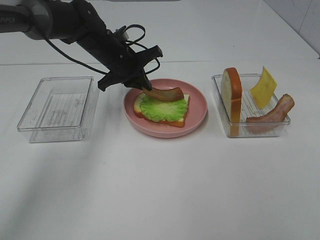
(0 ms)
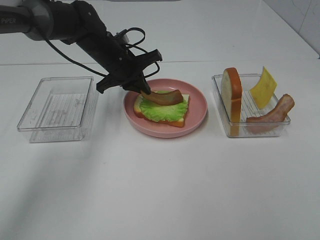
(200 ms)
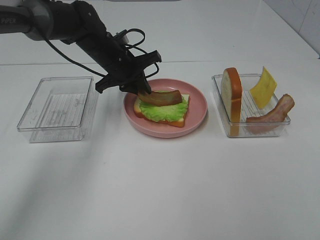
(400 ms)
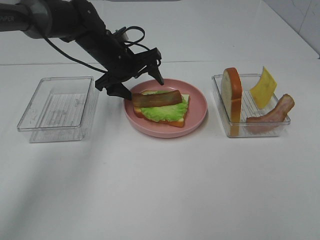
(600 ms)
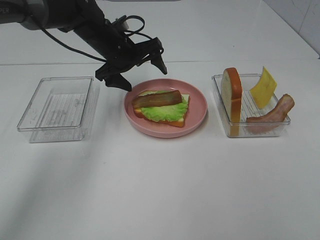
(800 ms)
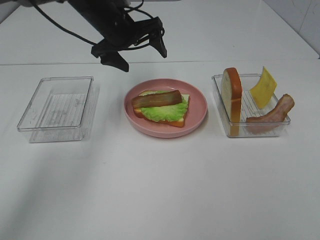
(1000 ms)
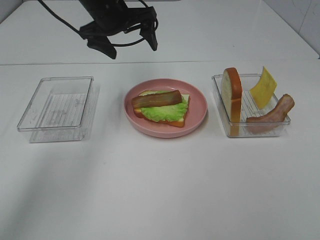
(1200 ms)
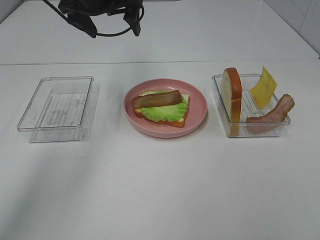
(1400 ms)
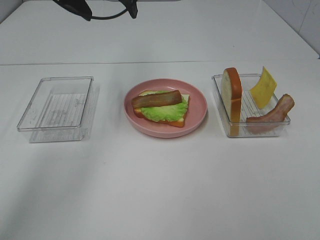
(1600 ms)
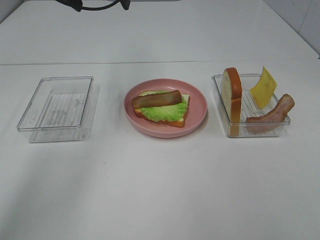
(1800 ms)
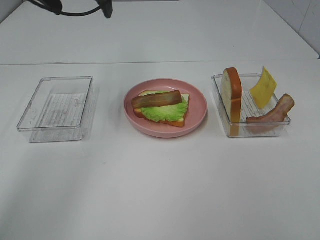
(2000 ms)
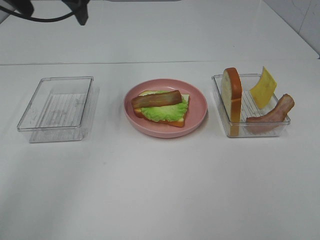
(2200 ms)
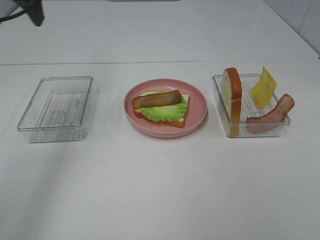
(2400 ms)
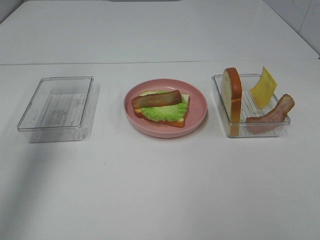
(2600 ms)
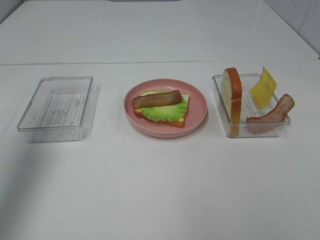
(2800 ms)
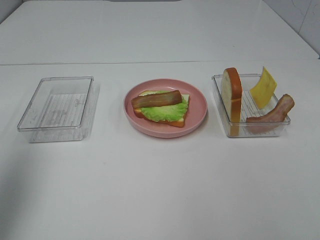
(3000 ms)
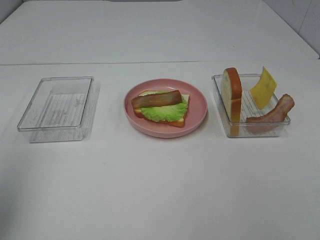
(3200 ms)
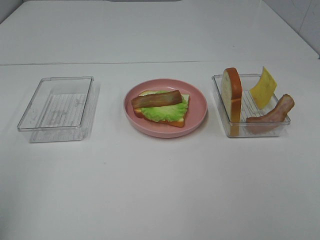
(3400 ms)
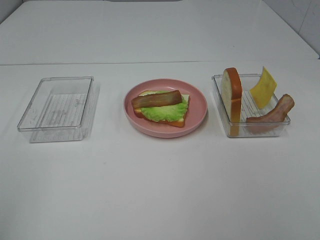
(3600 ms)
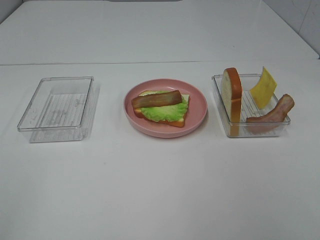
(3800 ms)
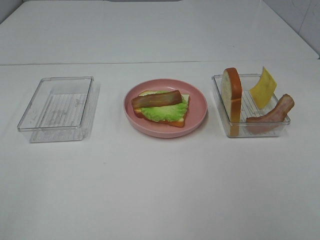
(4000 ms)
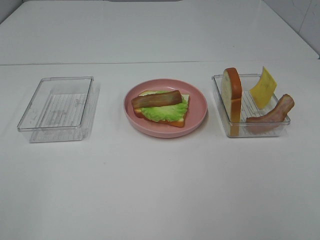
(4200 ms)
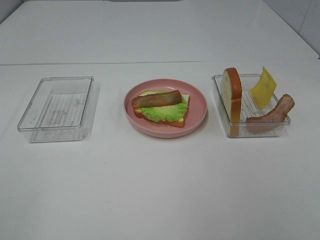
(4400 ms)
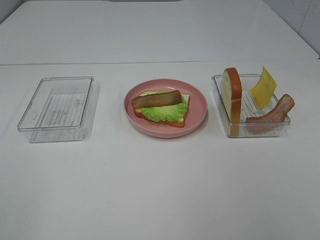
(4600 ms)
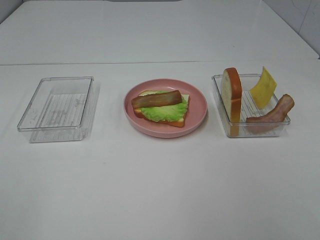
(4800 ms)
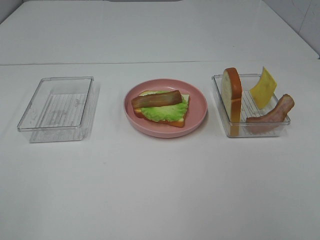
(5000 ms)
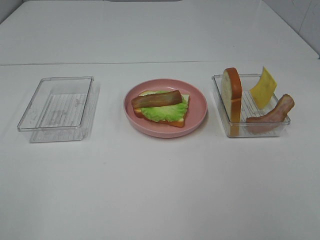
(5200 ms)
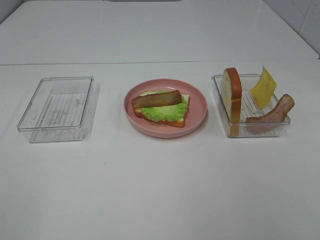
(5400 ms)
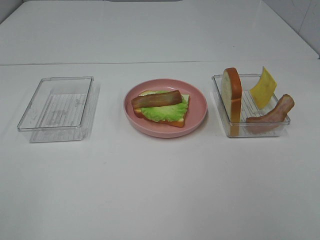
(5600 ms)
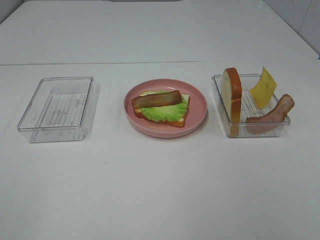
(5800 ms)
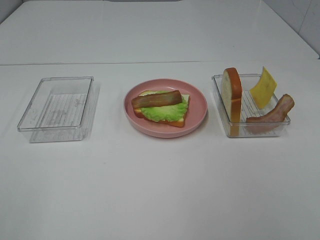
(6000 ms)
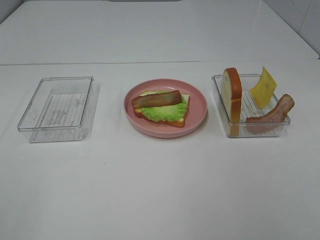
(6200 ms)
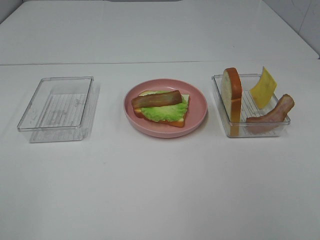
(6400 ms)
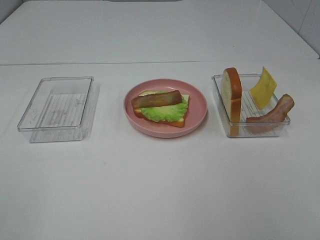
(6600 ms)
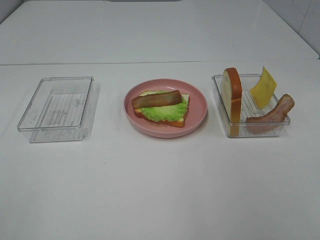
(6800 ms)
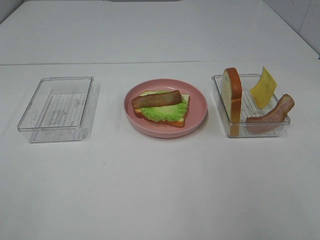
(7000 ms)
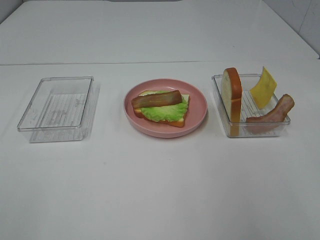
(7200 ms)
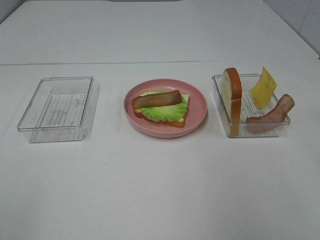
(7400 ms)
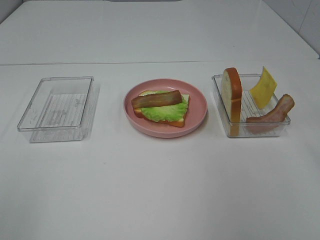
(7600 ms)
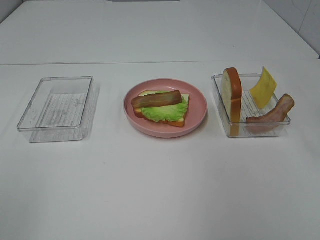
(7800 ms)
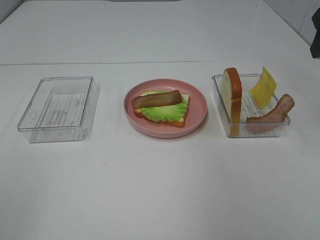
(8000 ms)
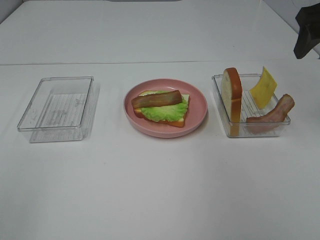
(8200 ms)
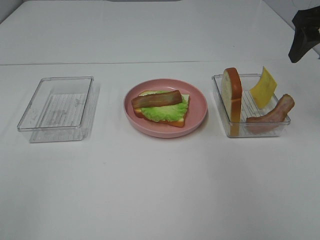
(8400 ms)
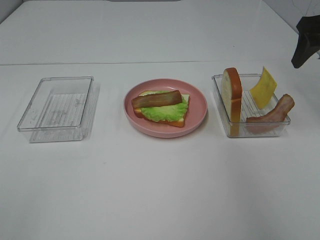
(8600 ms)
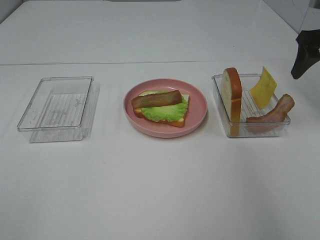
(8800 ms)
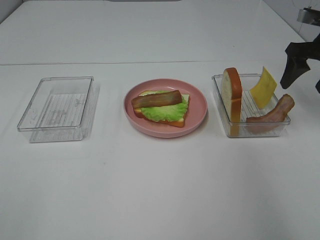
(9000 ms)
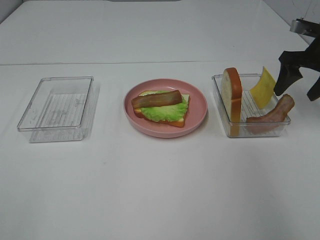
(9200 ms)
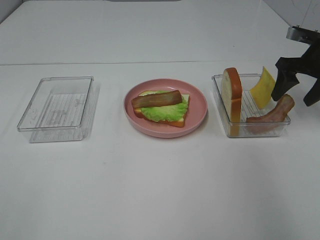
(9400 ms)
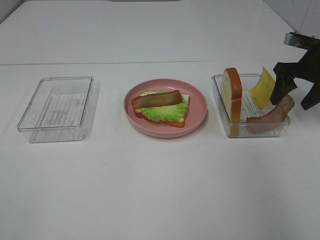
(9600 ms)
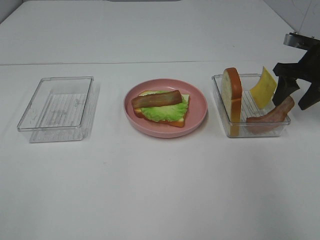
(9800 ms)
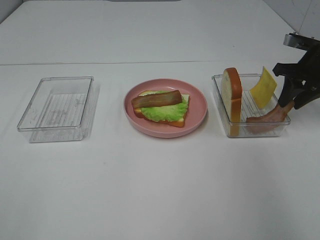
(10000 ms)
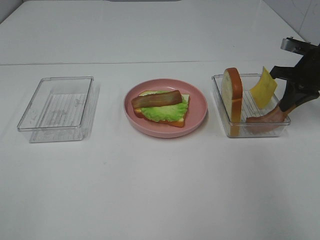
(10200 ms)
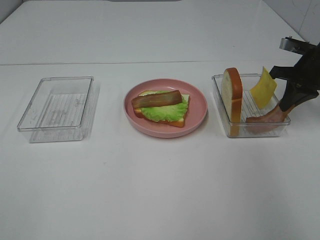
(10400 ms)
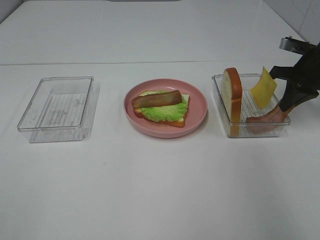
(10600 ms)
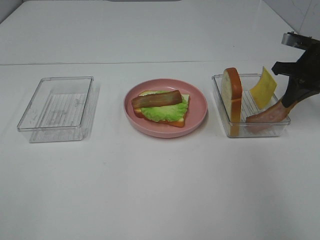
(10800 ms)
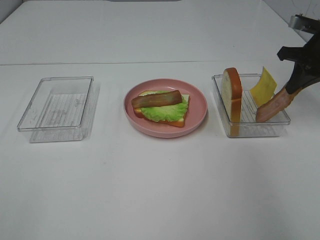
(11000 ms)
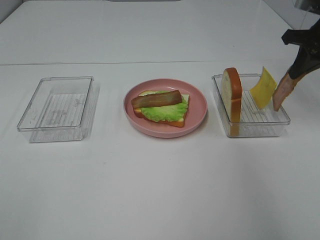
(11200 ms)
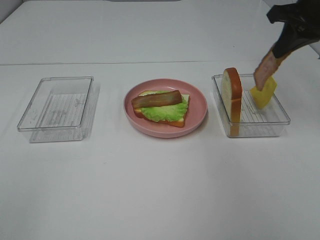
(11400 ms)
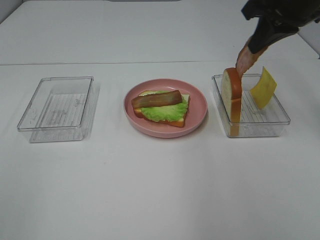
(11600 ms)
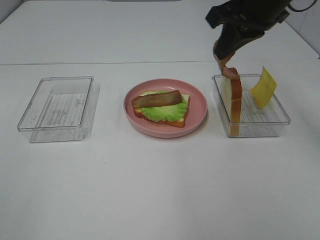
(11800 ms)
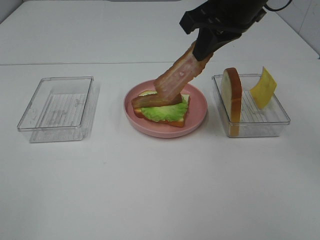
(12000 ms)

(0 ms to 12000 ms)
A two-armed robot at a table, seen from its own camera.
Task of the whole recording: Make sandwiches.
Step, 1000 ms - 10800 ms: Right hand:grab the bacon.
0 ms - 1600 ms: The left gripper goes about 20 cm upward, and opens.
1600 ms - 3000 ms: The left gripper is displaced backward and to the left by about 35 cm.
3000 ms - 4400 ms: The left gripper moves backward, about 20 cm.
4400 ms - 6000 ms: Both grippers stay about where they are.
7600 ms - 9000 ms: The right gripper goes approximately 20 cm forward and downward.
9000 ms - 10400 ms: The right gripper goes approximately 5 cm downward, and closes up.
10400 ms - 12000 ms: The right gripper shifts some 25 cm to the left and upward.

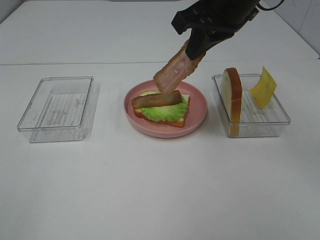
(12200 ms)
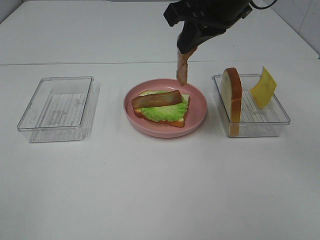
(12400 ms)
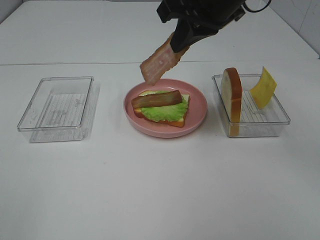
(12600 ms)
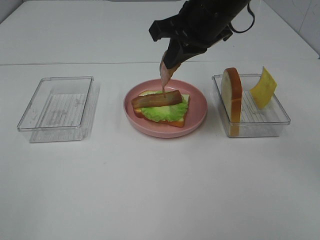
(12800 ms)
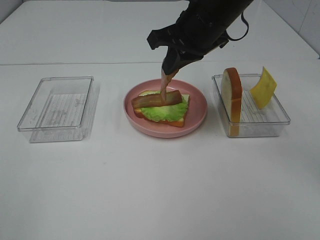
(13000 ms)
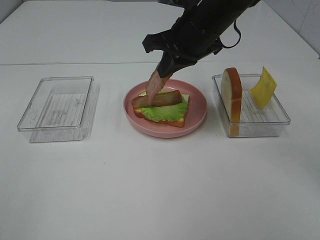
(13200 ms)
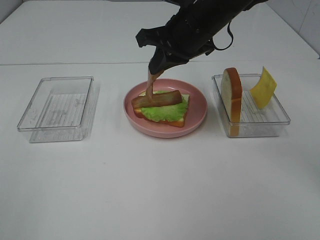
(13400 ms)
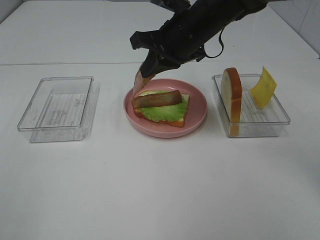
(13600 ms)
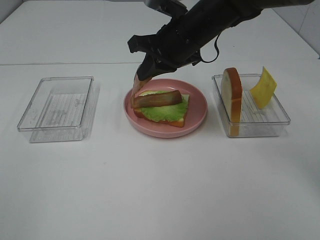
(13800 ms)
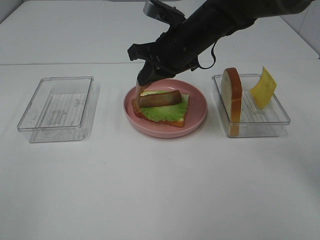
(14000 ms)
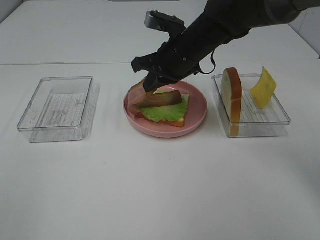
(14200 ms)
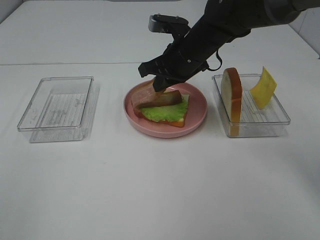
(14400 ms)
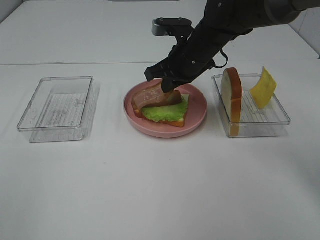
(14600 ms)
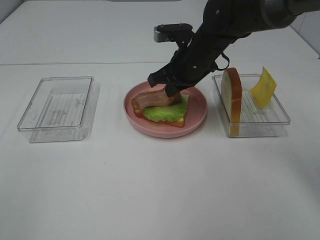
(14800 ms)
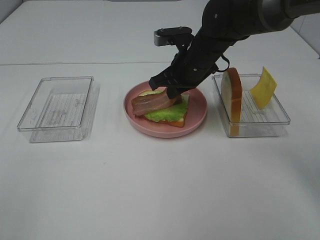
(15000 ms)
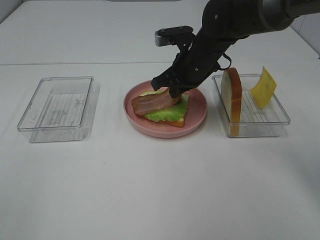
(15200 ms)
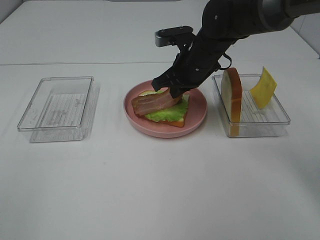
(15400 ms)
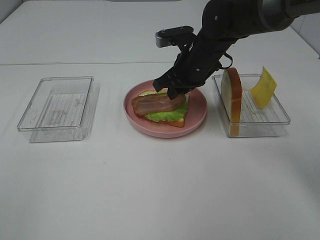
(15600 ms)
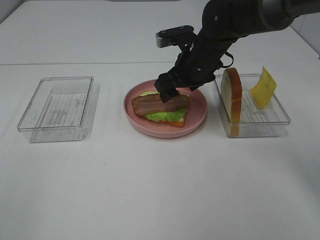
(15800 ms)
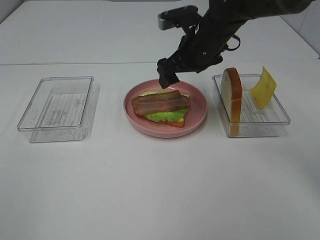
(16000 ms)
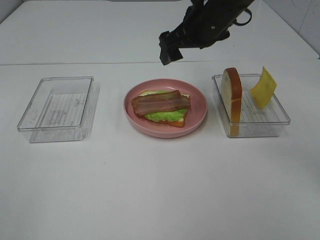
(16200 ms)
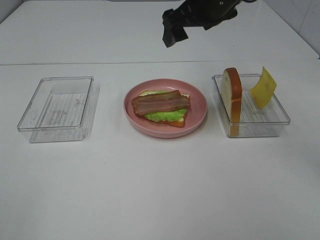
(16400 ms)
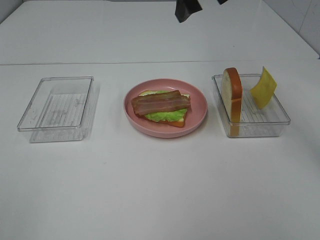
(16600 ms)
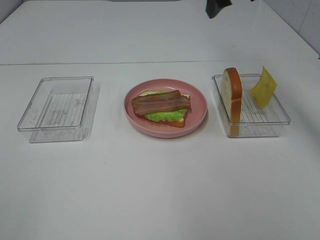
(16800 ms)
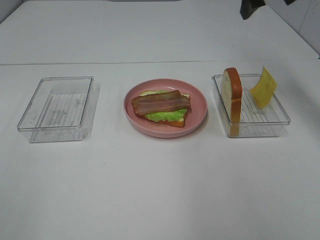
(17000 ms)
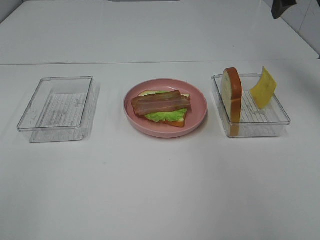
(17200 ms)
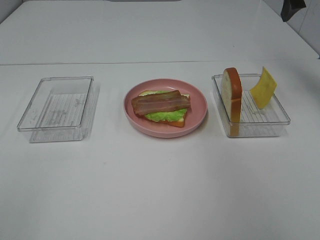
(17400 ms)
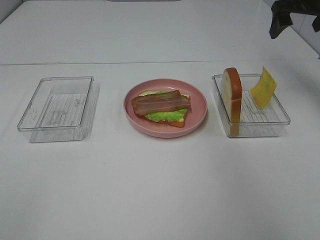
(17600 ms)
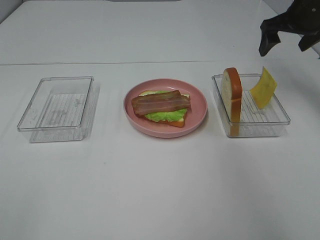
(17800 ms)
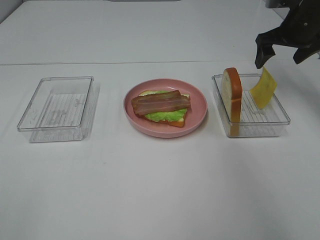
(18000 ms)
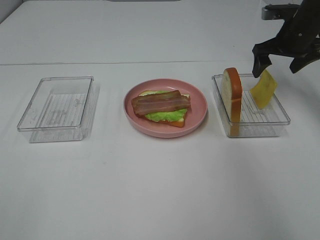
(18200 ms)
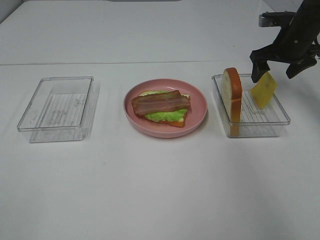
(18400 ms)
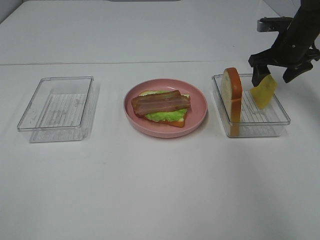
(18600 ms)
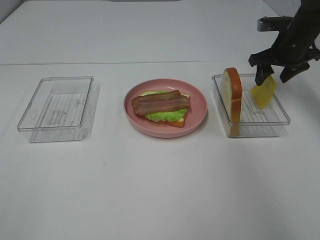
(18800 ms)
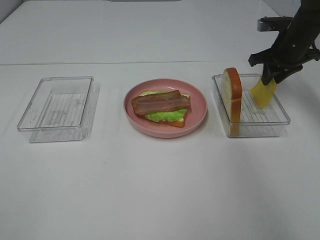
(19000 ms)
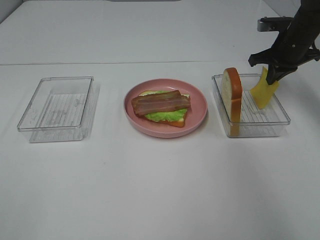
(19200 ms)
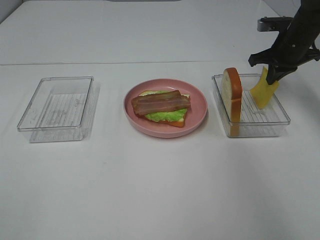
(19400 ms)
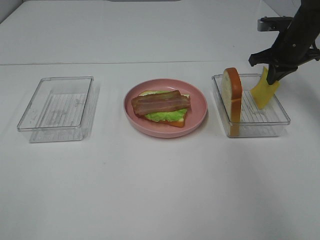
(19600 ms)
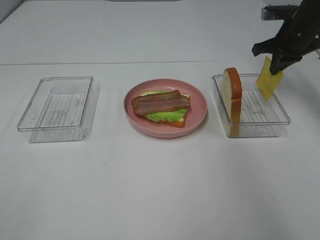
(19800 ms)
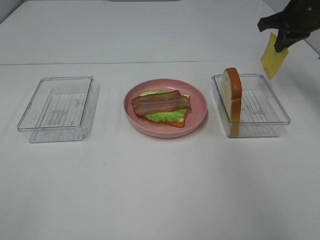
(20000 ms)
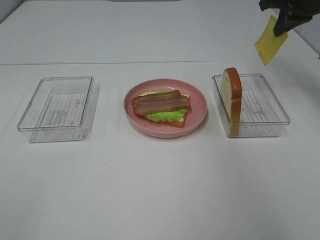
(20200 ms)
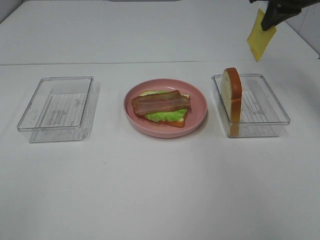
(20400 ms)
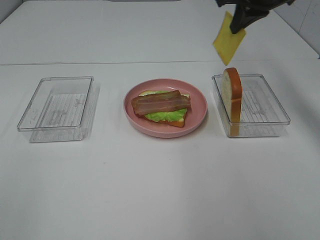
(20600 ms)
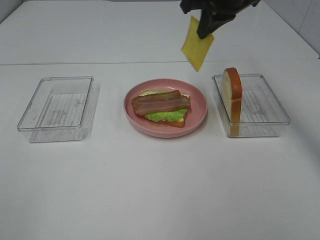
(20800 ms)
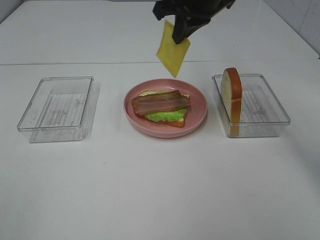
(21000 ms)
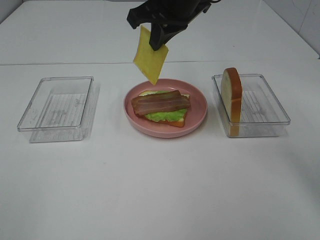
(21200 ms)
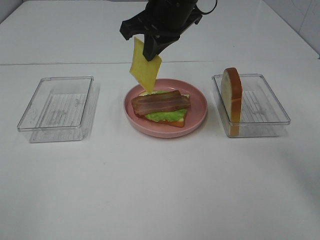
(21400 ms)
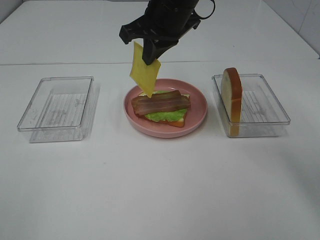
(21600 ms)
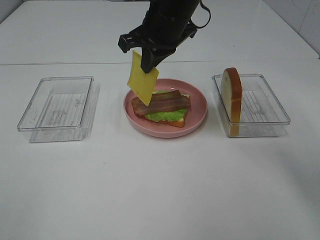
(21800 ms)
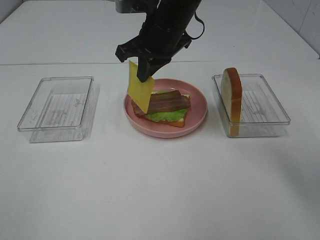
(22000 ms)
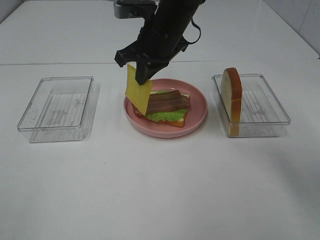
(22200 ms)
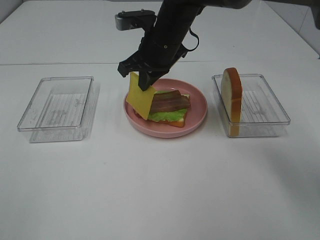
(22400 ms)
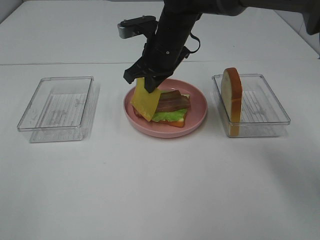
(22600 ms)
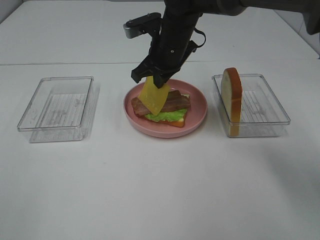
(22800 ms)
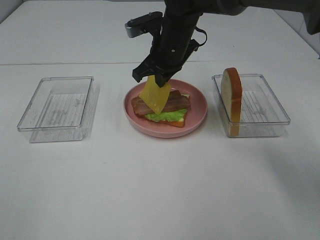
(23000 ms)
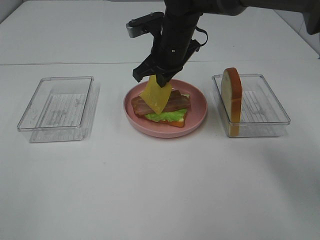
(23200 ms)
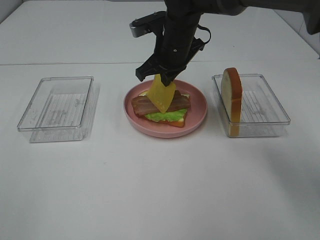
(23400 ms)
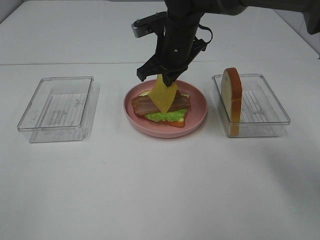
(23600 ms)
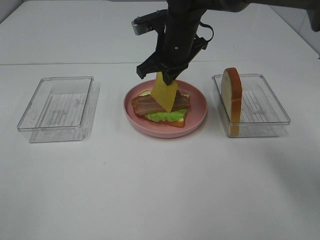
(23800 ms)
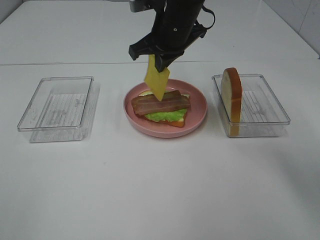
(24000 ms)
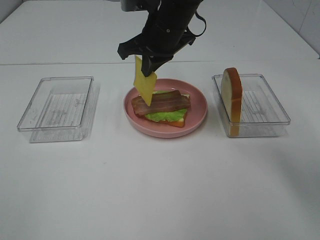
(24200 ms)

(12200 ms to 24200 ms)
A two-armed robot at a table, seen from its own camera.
Task of the whole recording: Make sandwiches.
Step, 12200 ms - 16000 ms: Right hand:place bacon on bacon.
Step, 16200 ms - 19400 ms: Right hand:grab the cheese slice.
12200 ms - 13800 ms: The right gripper is displaced downward by about 10 cm.
13800 ms - 15200 ms: The right gripper shifts about 5 cm downward.
15200 ms - 16600 ms: The right gripper is displaced upward by roughly 15 cm, and opens up.
16600 ms - 18200 ms: The right gripper shifts about 25 cm to the right, downward and forward.
18200 ms - 19800 ms: The right gripper closes its fingers.
19800 ms - 21200 ms: The right gripper travels to the left by roughly 25 cm.
21200 ms - 22600 ms: The right gripper travels downward by roughly 10 cm.
22600 ms - 24200 ms: The grippers stay close to where they were, moving slightly.
